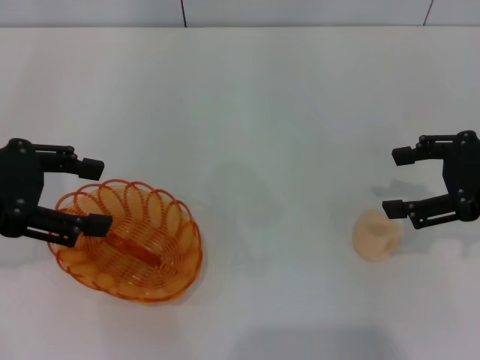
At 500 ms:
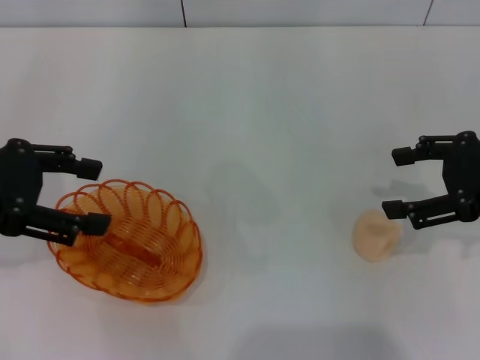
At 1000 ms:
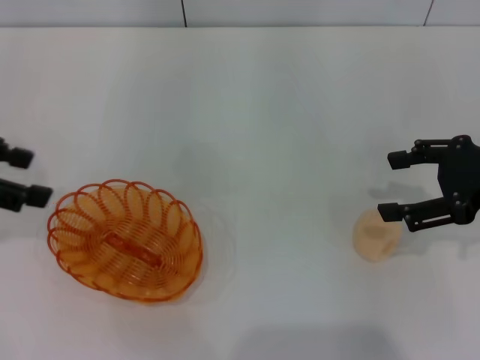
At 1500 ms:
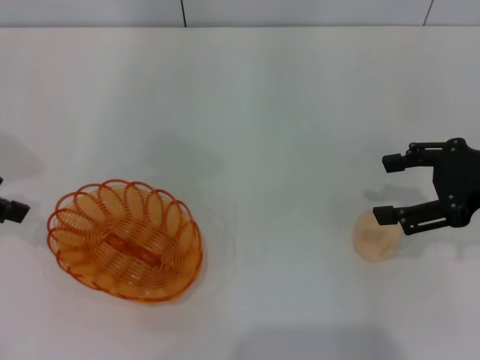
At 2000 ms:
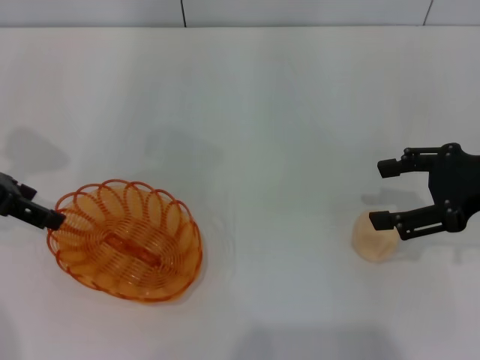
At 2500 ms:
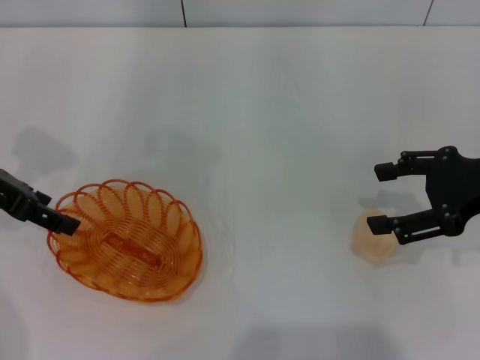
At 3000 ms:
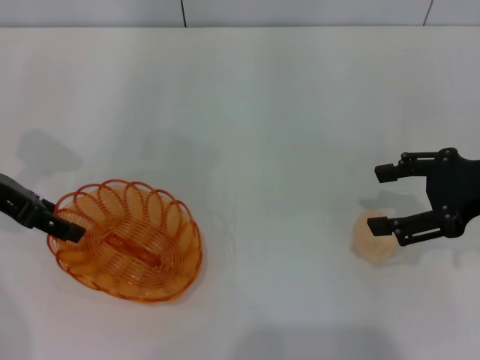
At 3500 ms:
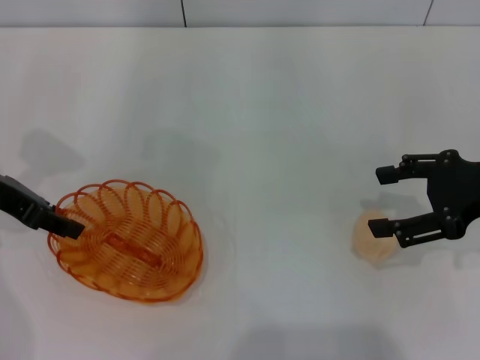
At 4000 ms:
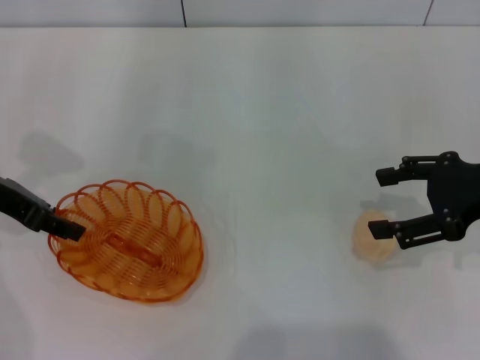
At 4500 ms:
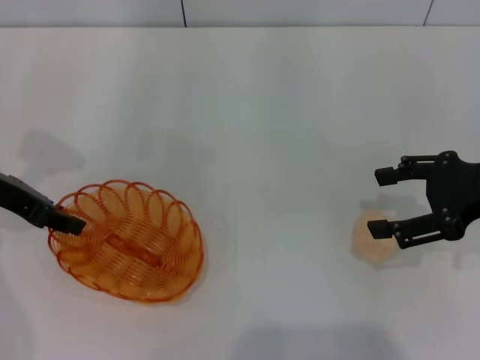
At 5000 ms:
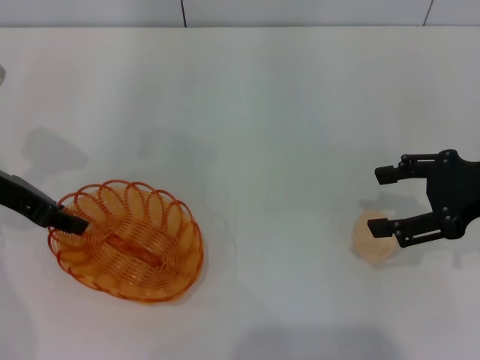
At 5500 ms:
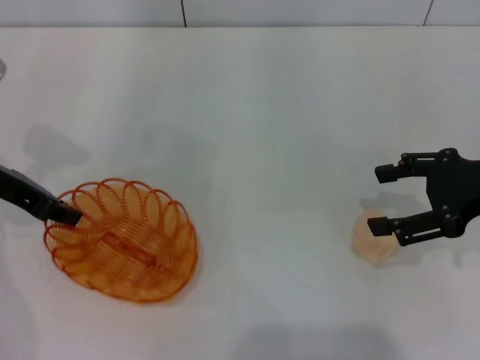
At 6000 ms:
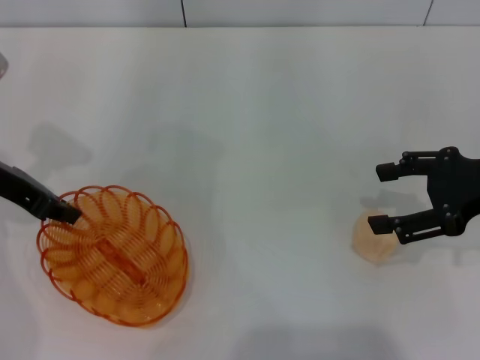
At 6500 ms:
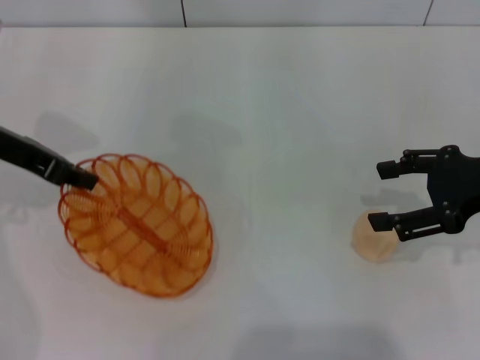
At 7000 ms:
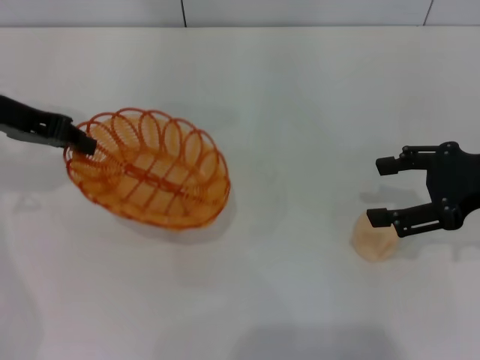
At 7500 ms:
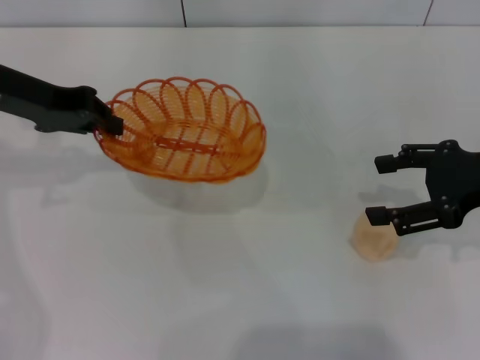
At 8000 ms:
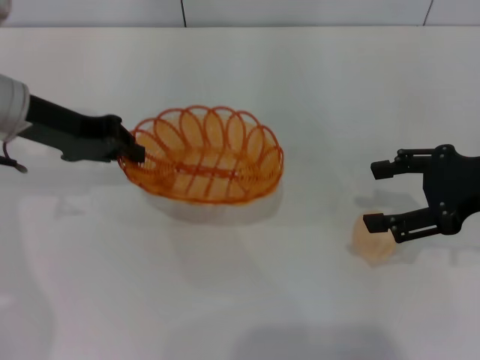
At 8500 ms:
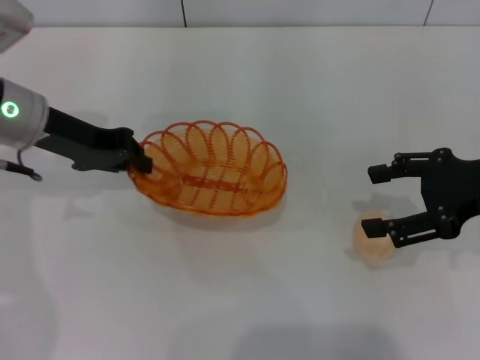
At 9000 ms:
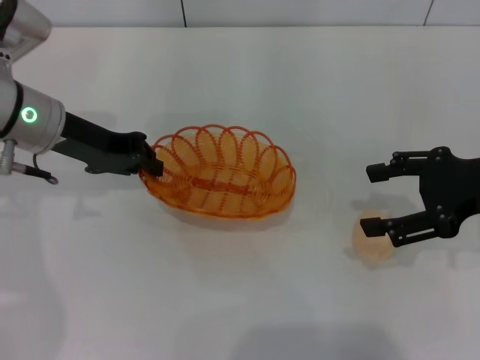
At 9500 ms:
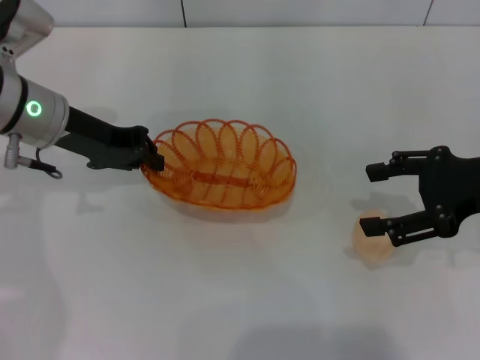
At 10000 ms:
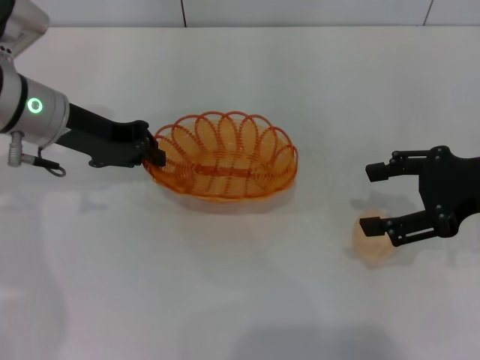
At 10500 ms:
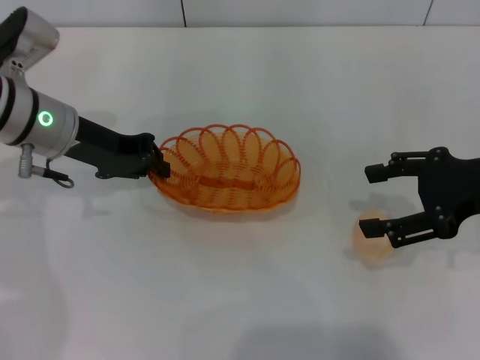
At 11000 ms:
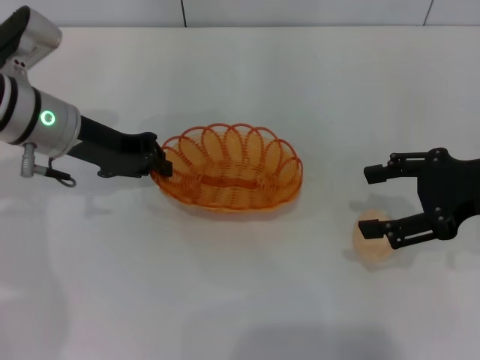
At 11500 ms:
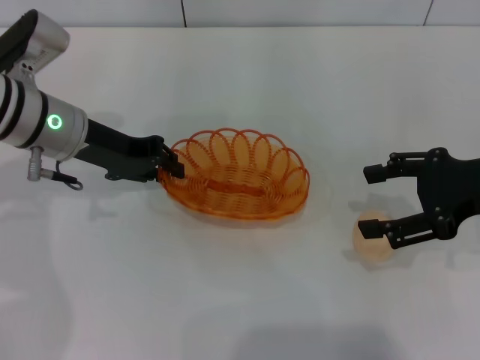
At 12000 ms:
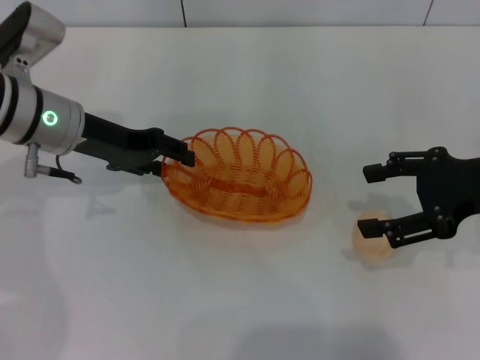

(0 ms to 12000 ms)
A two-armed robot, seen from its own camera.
Step, 0 ms - 7500 ms: Pick up the basket with the left gripper.
0 ms - 2000 ms: The left gripper heads forward, covering approximately 5 cm.
2000 ms - 4000 ms: The left gripper closes up.
4000 ms - 6000 ms: The left gripper closes its fingers.
8000 ms - 10000 ms: The grippers stay close to where they were, moving slightly.
10000 ms - 12000 ms: The left gripper opens.

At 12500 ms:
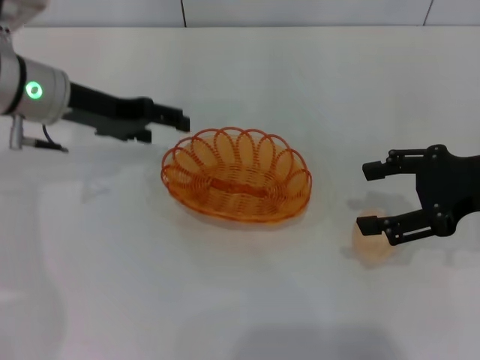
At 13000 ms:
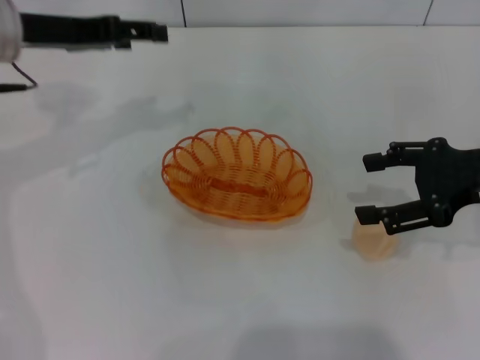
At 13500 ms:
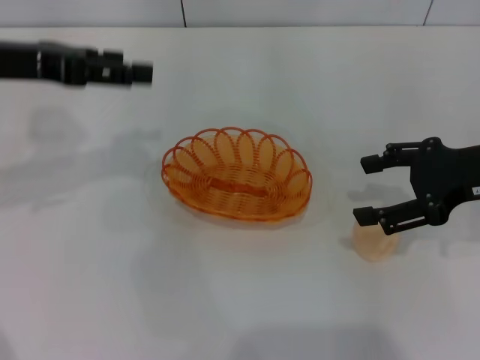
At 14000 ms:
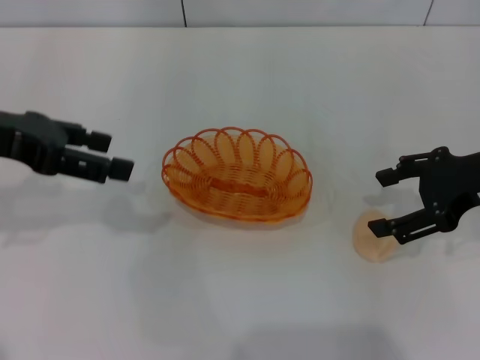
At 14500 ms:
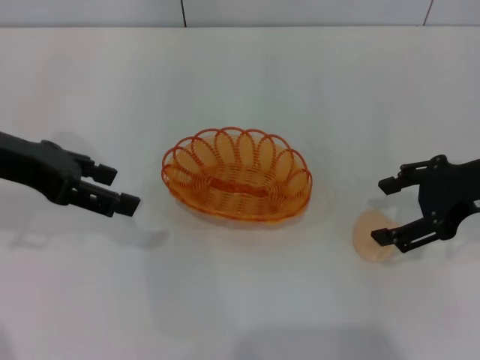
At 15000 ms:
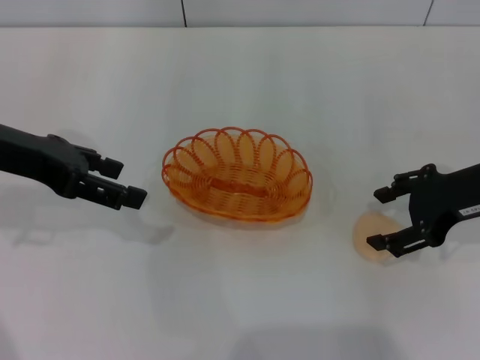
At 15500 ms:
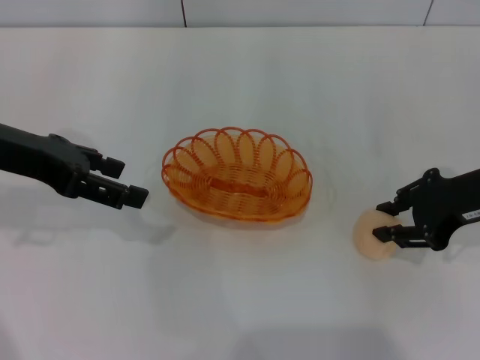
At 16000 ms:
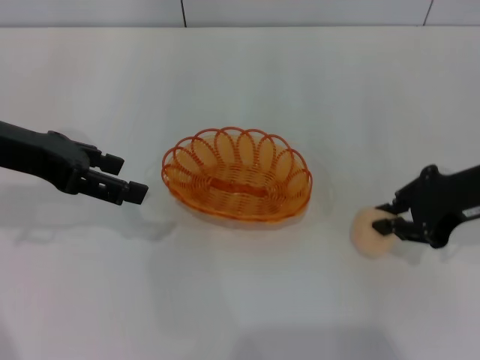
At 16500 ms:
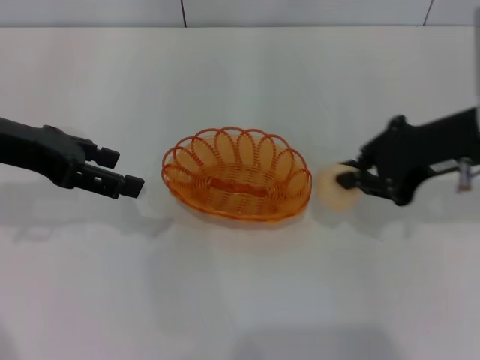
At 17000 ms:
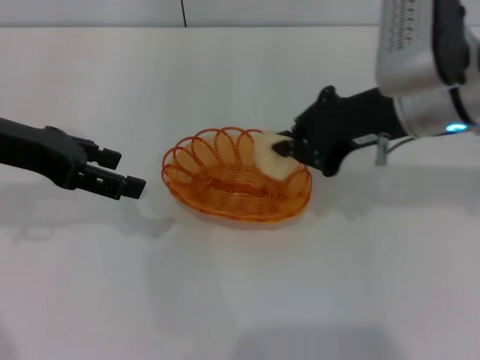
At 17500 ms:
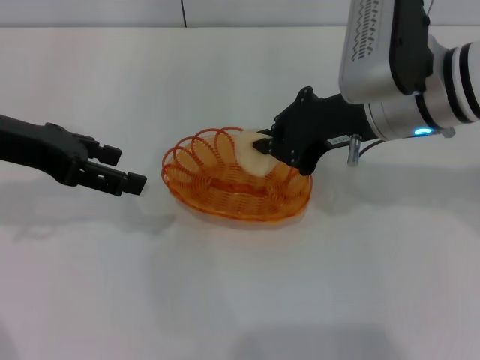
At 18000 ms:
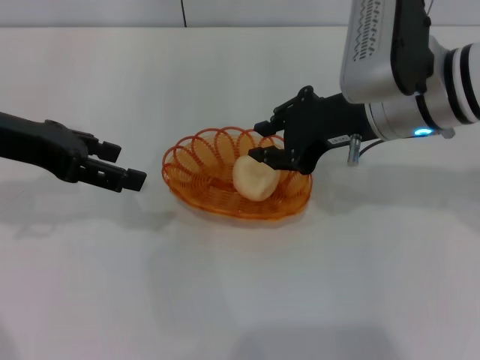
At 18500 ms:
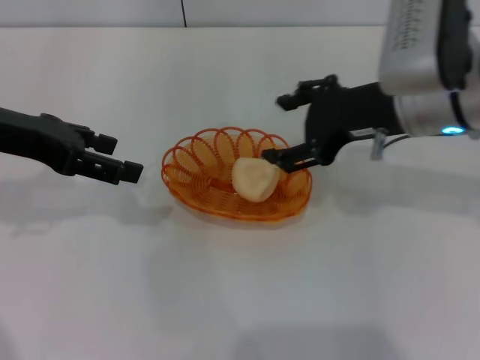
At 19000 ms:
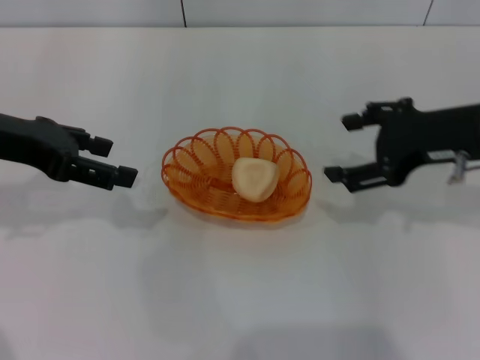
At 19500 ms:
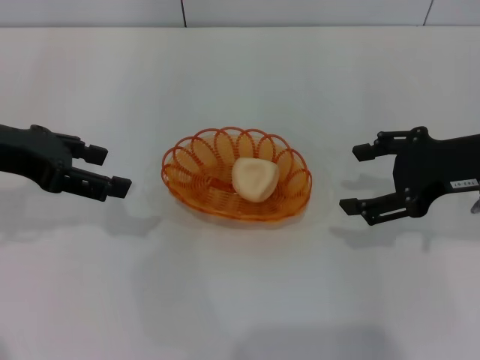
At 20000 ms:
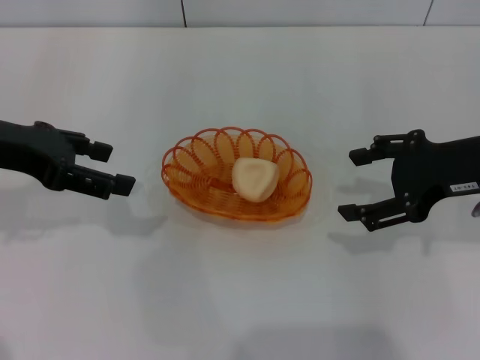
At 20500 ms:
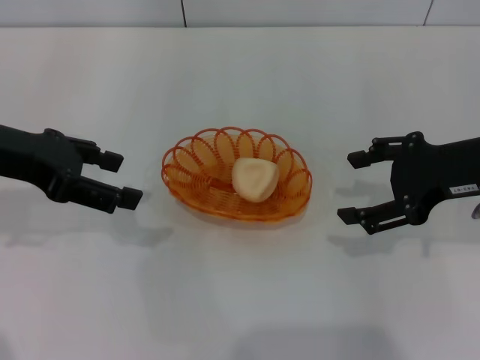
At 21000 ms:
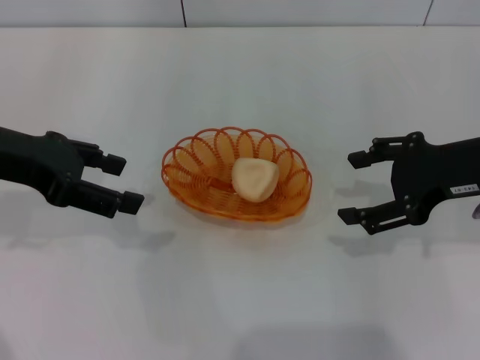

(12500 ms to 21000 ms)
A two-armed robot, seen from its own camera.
Step, 13000 ms - 16000 ms: Pick up the egg yolk pastry with the right gripper.
Step, 16500 ms - 19000 ms: Place the egg yolk pastry into the basket with the right gripper.
12500 ms - 14500 ms: The left gripper goes some 10 cm backward and upward.
14500 ms - 16500 ms: The right gripper moves to the left, some 5 cm, and closes its fingers.
16500 ms - 19000 ms: The right gripper moves approximately 10 cm to the left and comes back, and opens its fingers.
19000 ms - 21000 ms: There are only small adjustments of the grippers.
